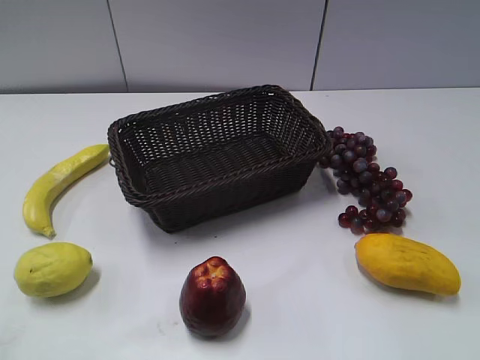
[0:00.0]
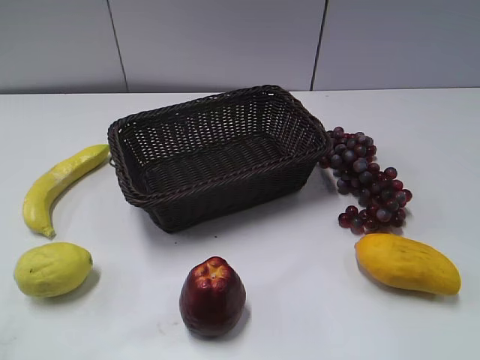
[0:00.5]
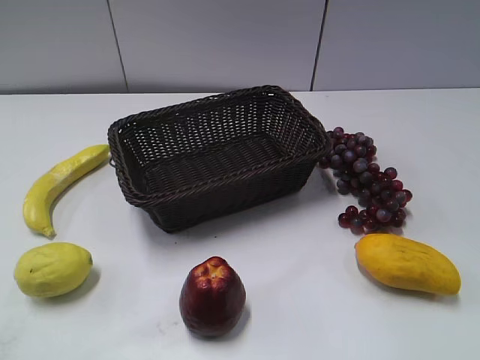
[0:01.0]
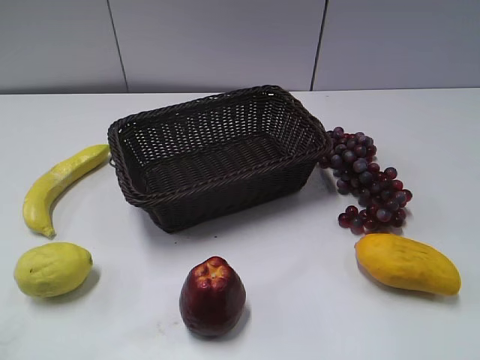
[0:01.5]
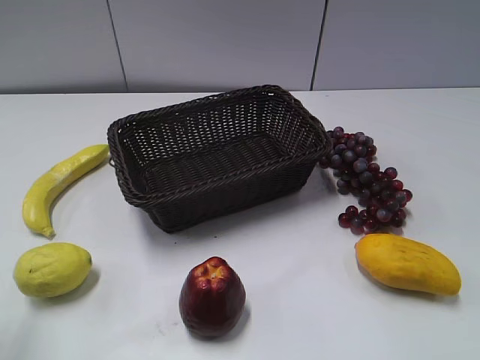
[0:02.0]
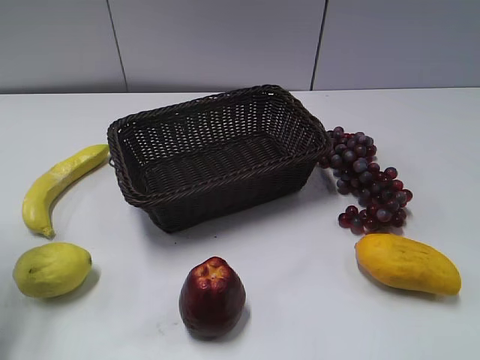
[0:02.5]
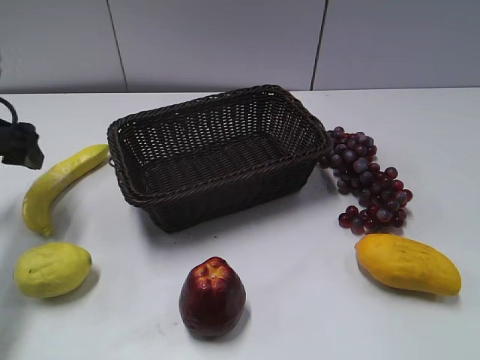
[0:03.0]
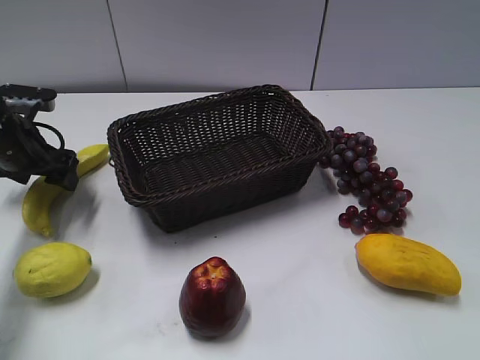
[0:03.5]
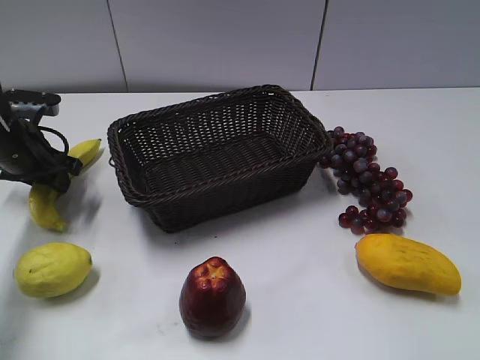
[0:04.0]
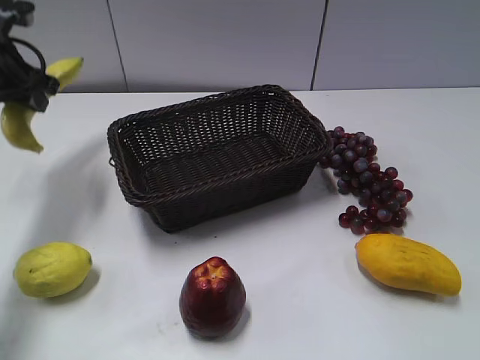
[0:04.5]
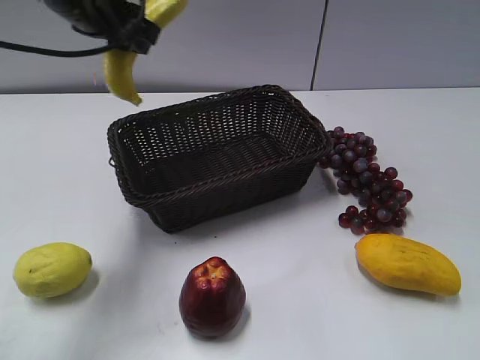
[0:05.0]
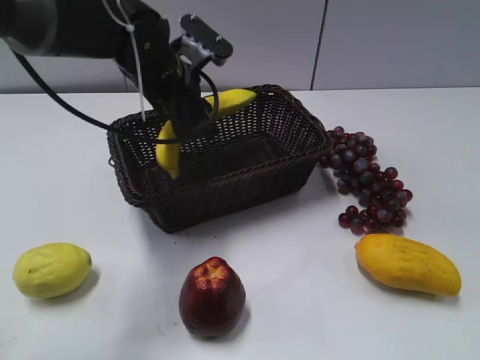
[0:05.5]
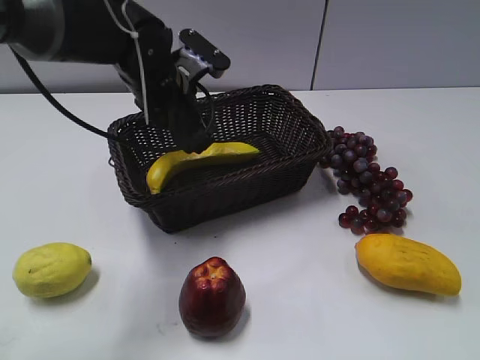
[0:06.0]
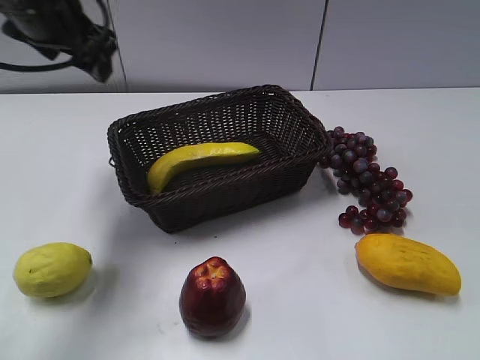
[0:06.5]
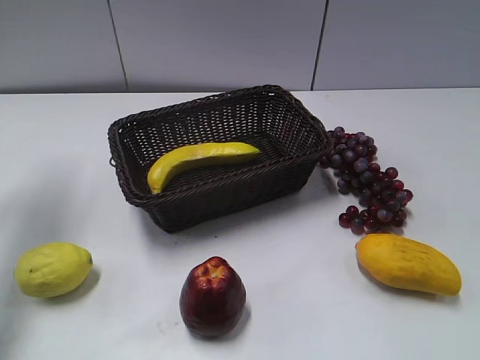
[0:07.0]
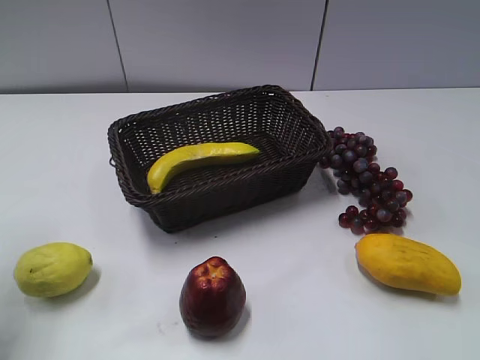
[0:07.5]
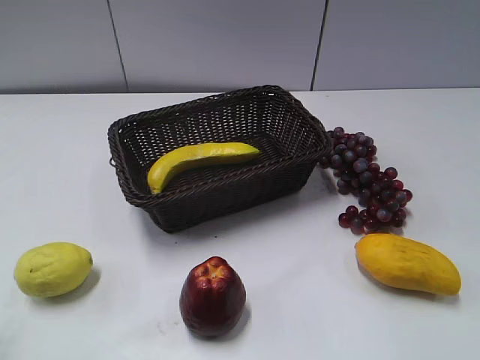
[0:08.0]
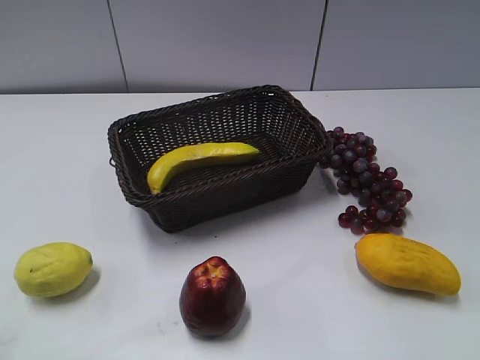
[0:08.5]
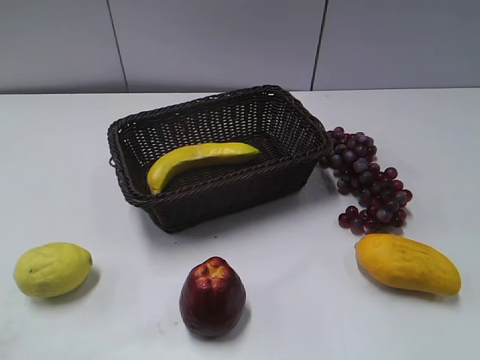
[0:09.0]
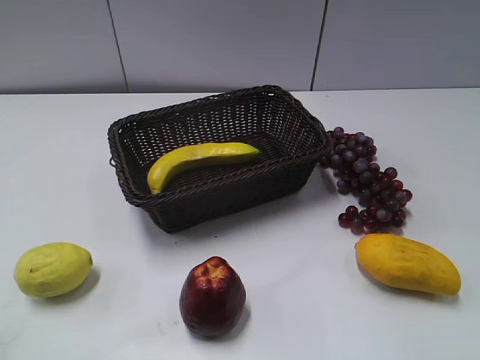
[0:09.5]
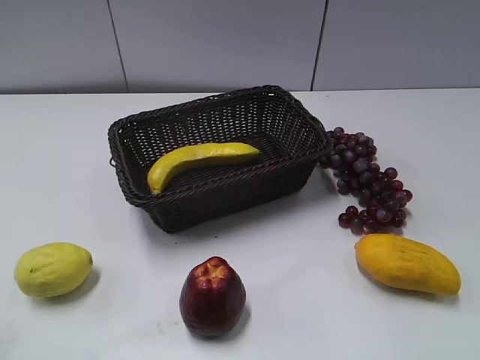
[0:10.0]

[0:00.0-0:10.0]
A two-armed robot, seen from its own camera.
Step, 0:03.0 to 0:04.0: Grasp the banana with left gripper.
Step, 0:04.5 to 0:06.0: Place the banana in the basket with left gripper.
0:02.0 to 0:04.0: The left gripper is displaced forward and downward by approximately 30 cm, and closes.
0:04.0 to 0:06.0: The left gripper travels to the right by about 20 cm, and opens up.
0:06.0 to 0:08.0: The left gripper shifts roughly 40 cm backward and to the left.

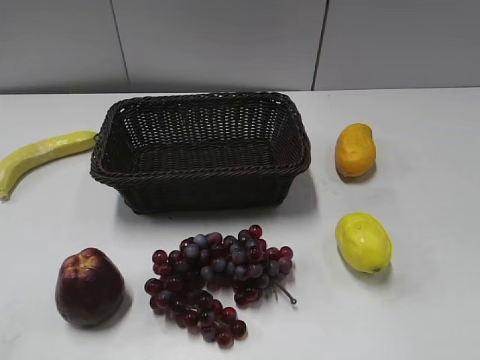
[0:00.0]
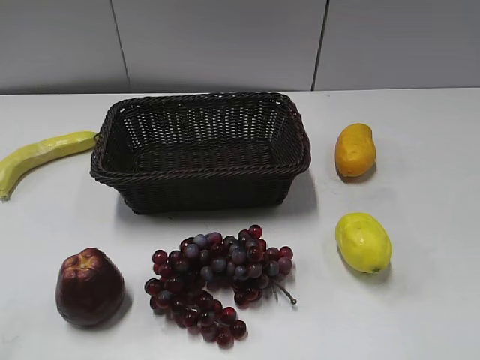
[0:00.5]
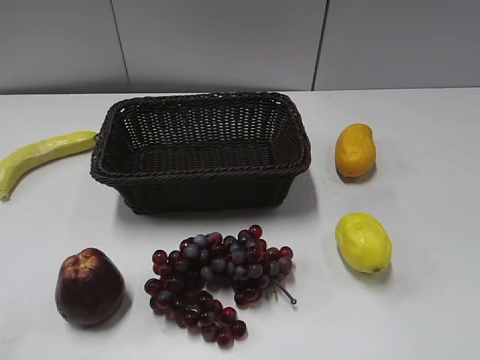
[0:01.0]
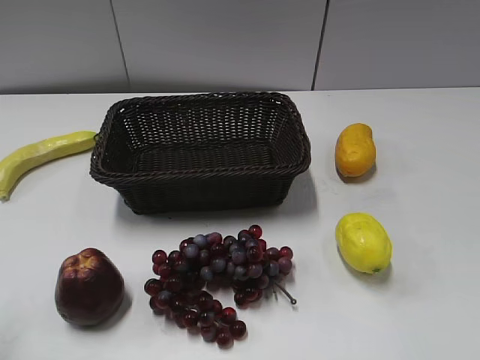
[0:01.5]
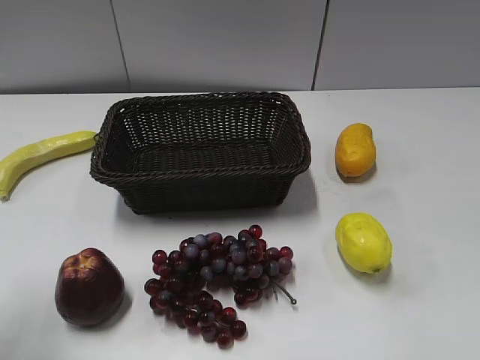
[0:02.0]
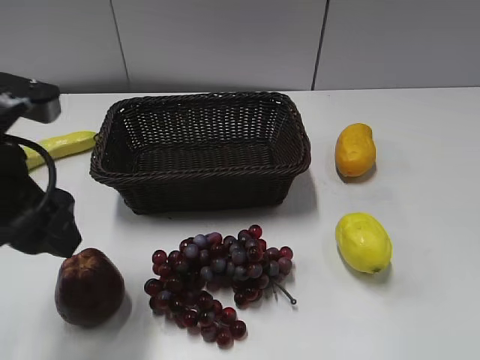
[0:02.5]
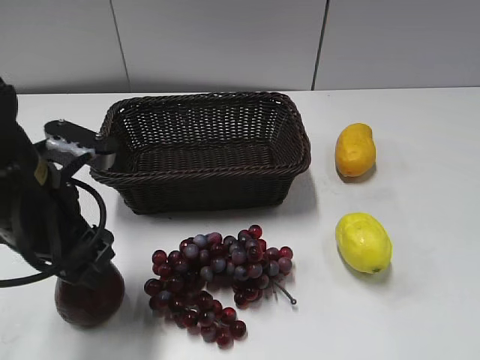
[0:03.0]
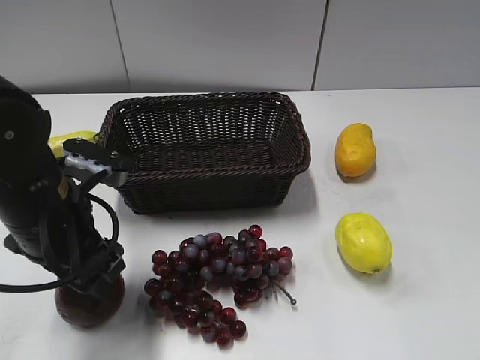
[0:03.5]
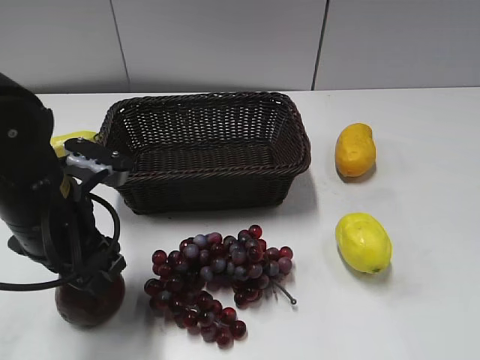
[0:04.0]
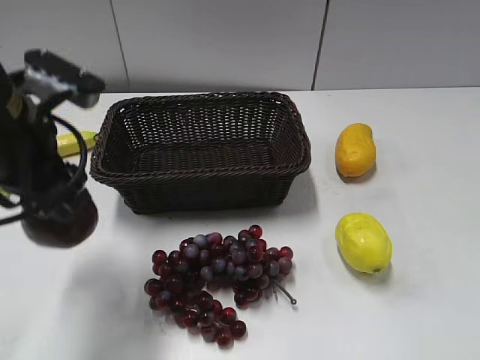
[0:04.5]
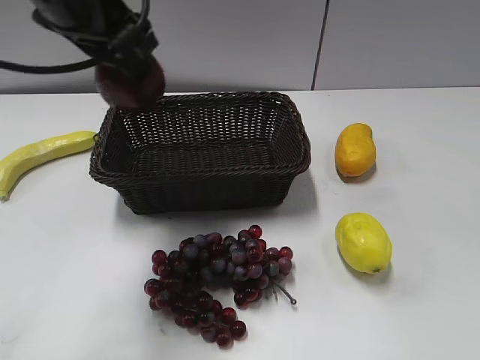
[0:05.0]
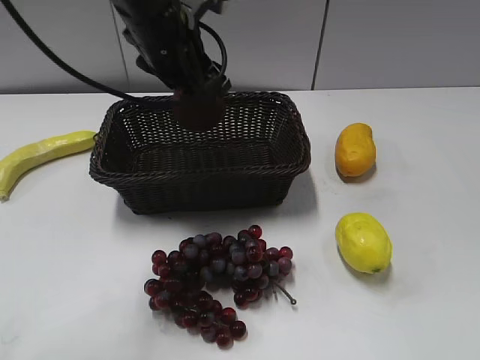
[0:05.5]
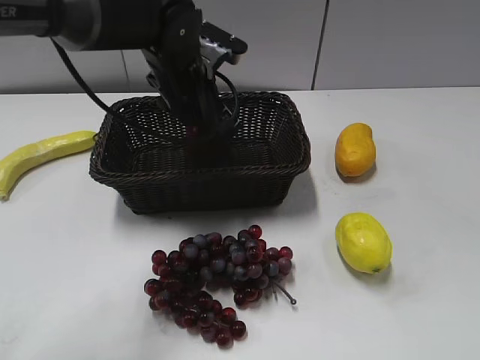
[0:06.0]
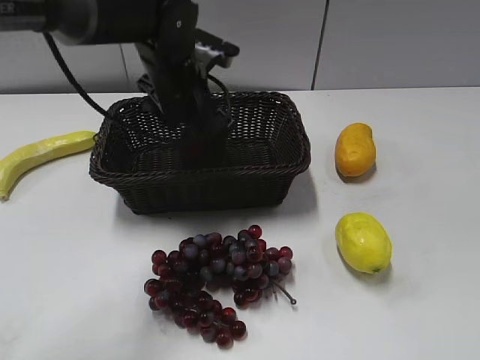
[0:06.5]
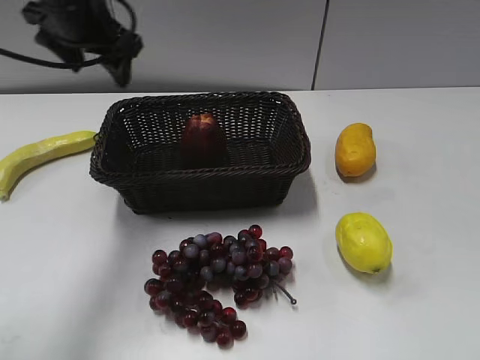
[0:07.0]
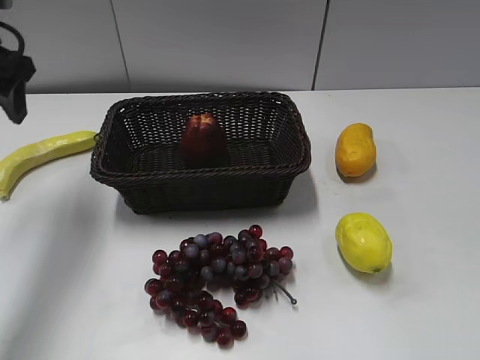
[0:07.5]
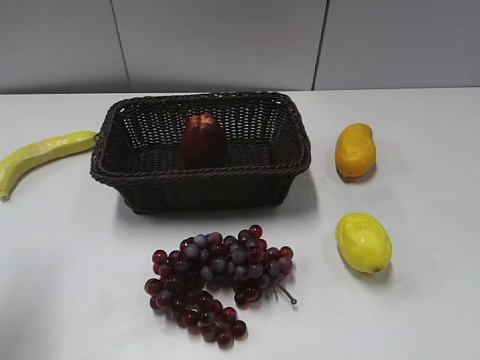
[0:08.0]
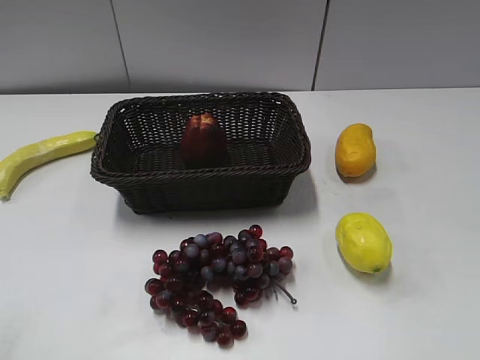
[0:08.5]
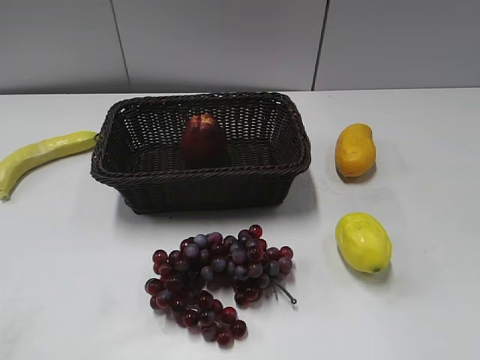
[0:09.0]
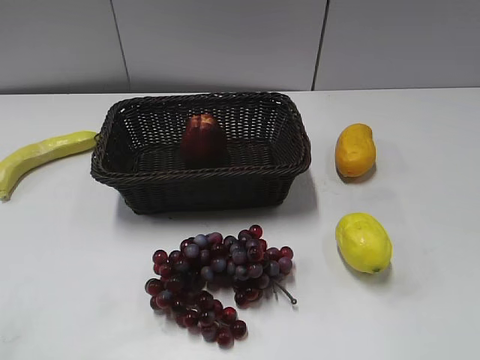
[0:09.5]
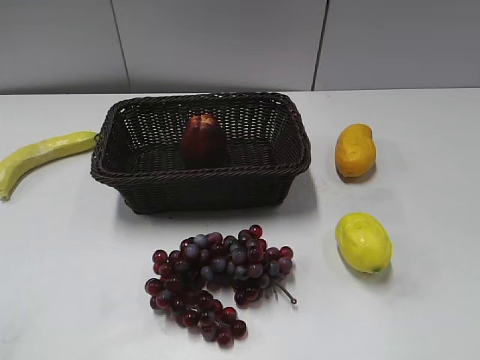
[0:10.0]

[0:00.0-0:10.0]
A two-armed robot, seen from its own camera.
Step, 0:02.5 to 0:03.5: Grasp the apple with left gripper.
Step, 0:04.5 to 0:06.0: Place the apple in the basket with left gripper.
0:02.0 to 0:04.0: The left gripper travels to the right, downward and forward by roughly 15 cm, and closes its fingers.
0:04.0 to 0:06.0: The left gripper shifts approximately 20 cm forward and to the right.
0:06.0 to 0:08.0: The left gripper goes approximately 30 cm to the left and backward, and opens its fingers.
0:08.0 to 0:10.0: The left gripper goes roughly 20 cm backward.
